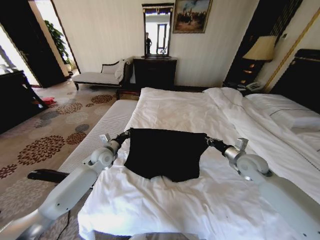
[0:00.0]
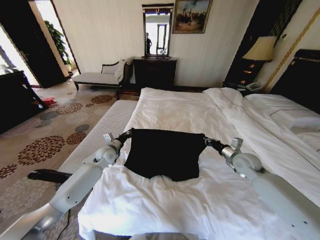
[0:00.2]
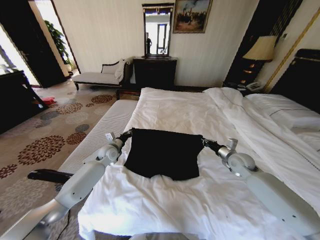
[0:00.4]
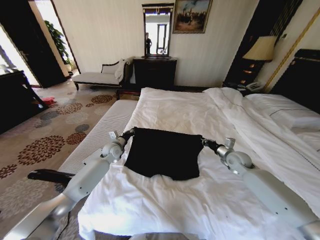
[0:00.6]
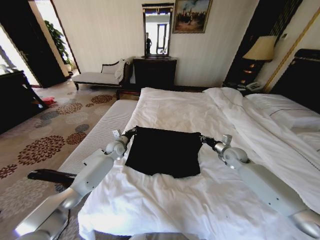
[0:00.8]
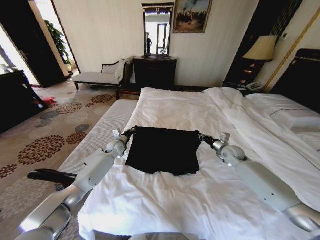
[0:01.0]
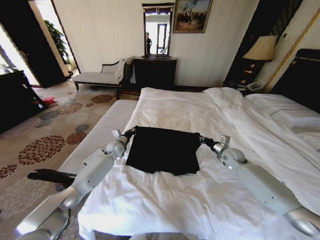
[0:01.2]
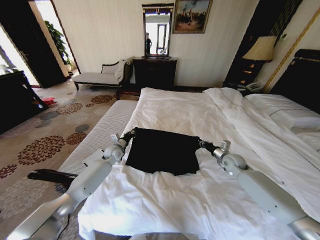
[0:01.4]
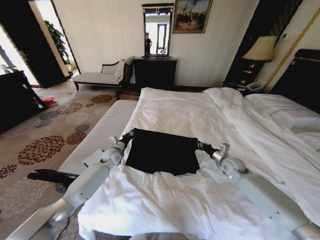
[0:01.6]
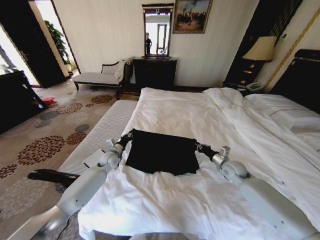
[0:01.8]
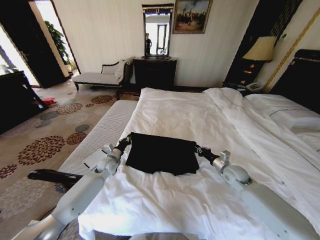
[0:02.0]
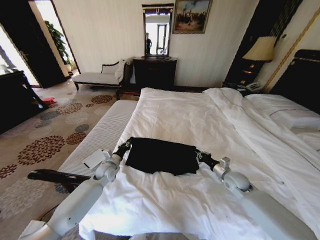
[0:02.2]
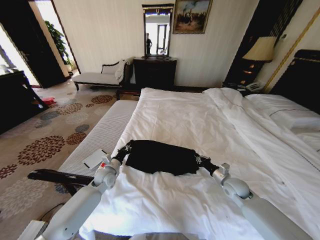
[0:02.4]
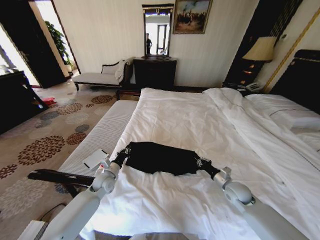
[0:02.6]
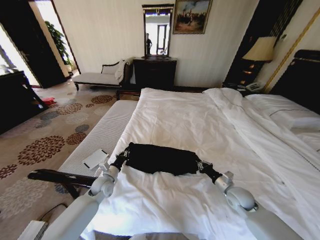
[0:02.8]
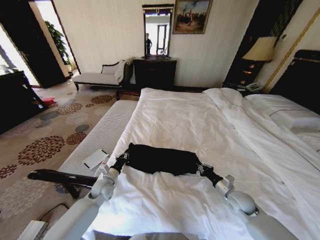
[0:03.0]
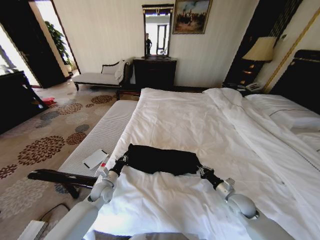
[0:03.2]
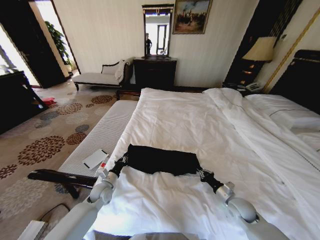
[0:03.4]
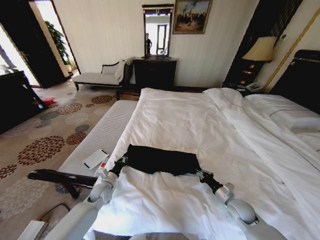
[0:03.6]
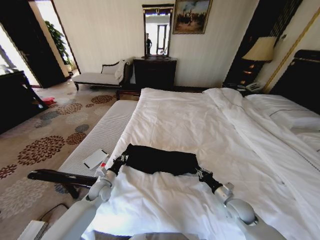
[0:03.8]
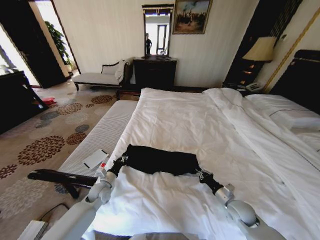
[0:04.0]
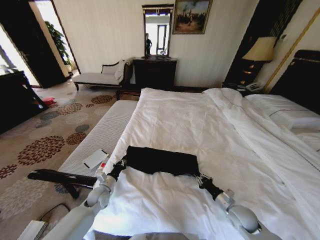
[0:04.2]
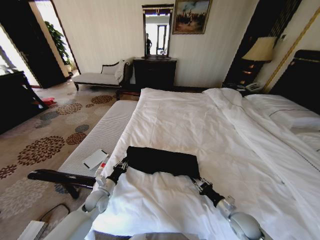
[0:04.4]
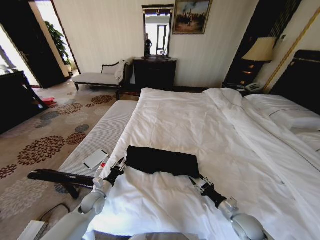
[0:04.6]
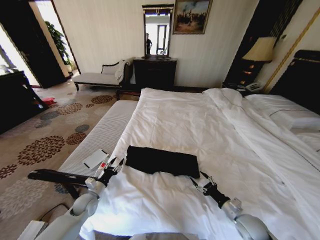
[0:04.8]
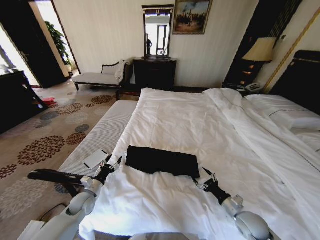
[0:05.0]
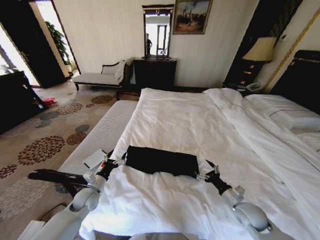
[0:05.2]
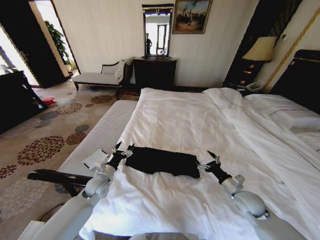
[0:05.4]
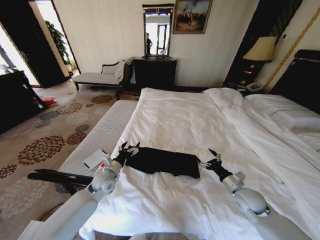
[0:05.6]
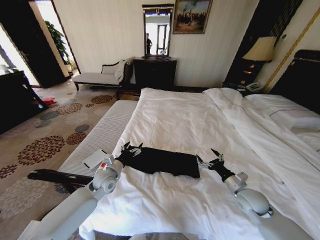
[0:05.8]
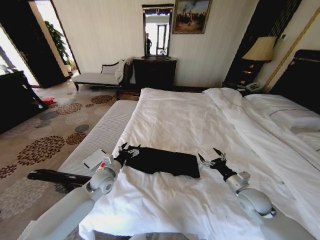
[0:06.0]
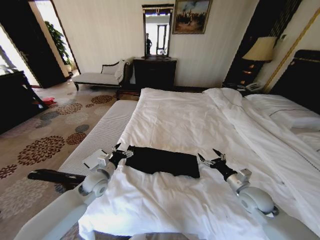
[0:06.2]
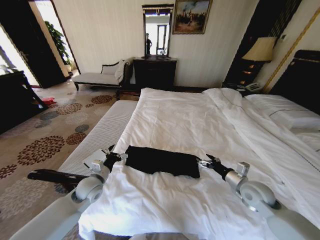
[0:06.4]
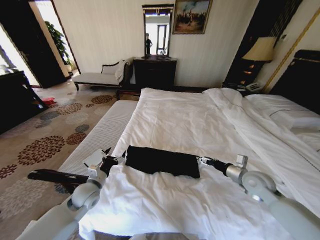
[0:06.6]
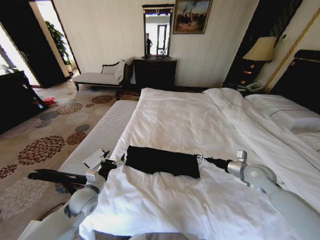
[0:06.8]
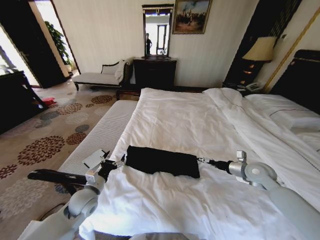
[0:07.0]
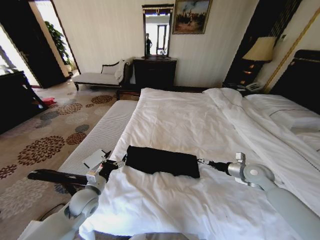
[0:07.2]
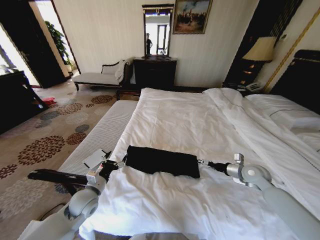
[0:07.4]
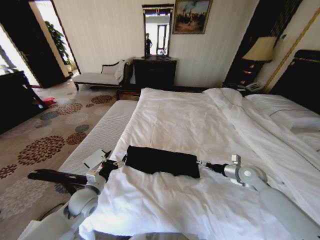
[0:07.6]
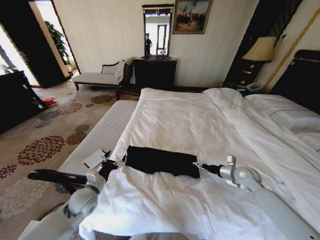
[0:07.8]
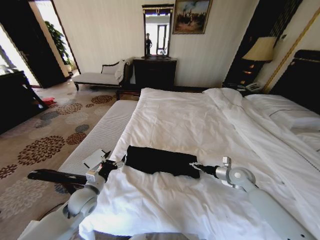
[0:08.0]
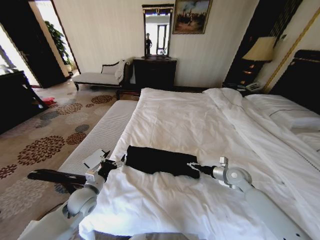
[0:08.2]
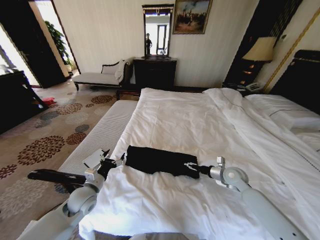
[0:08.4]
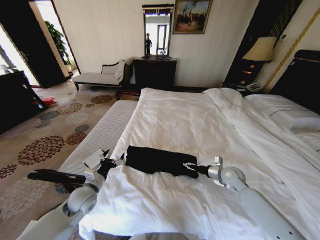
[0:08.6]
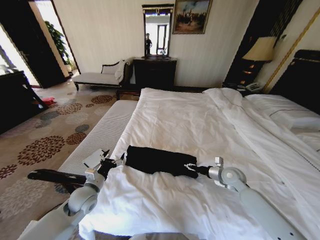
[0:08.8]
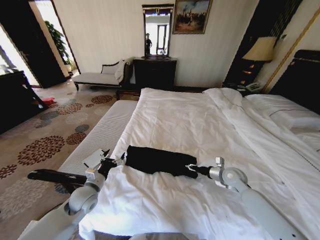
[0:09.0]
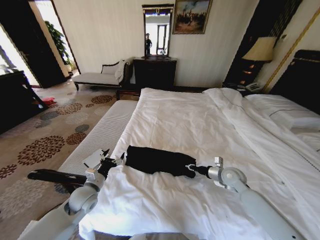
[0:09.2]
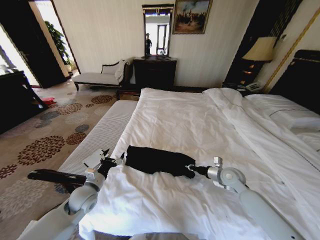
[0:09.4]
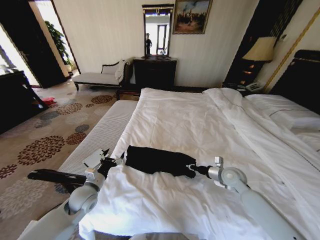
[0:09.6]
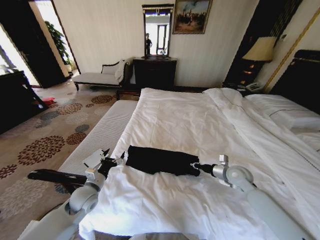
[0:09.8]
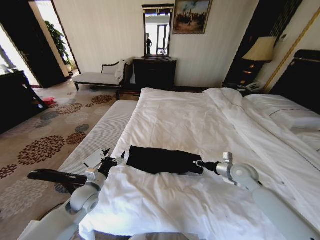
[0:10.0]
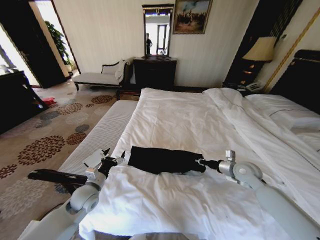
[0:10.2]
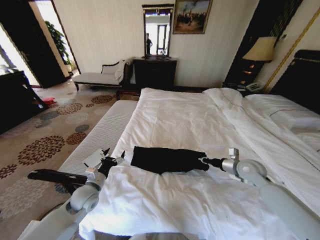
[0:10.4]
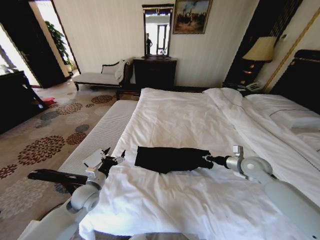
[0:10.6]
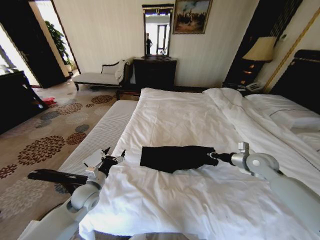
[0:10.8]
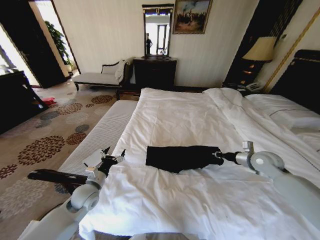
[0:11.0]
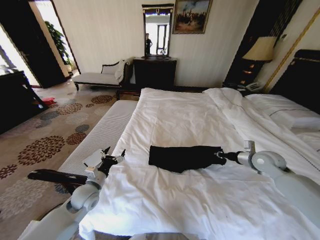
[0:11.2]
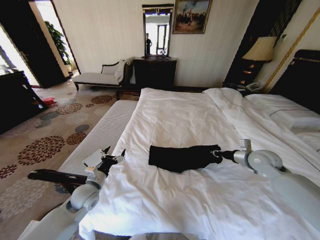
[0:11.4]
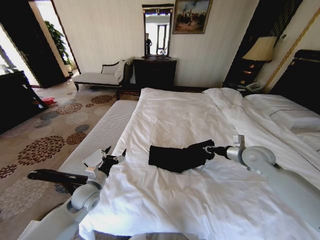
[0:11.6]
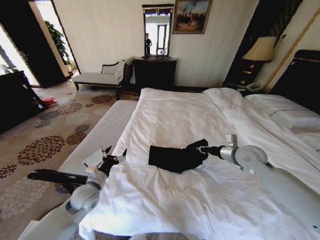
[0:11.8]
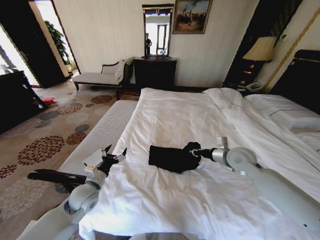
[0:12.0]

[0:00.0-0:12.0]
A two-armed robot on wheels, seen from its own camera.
Task of the whole recording: Fold the clothes on the bed.
0:00.0 to 0:01.6: Both grippers move downward and forward, approximately 10 cm.
0:01.6 to 0:03.0: Both grippers travel together backward and downward, approximately 15 cm.
0:03.0 to 0:04.4: The right gripper moves backward, roughly 5 cm, while the left gripper ends up about 5 cm from where it was.
0:04.4 to 0:06.0: The grippers both shift upward and forward by approximately 10 cm. The left gripper opens its fingers; the right gripper opens up.
0:06.0 to 0:07.6: The right gripper goes some 10 cm forward; the left gripper moves backward, roughly 10 cm.
0:07.6 to 0:09.0: The right gripper heads to the left, covering some 5 cm, and closes its fingers.
0:09.0 to 0:10.4: The right gripper is displaced upward by about 5 cm, and closes.
0:10.4 to 0:12.0: The right gripper goes some 10 cm to the left and upward.

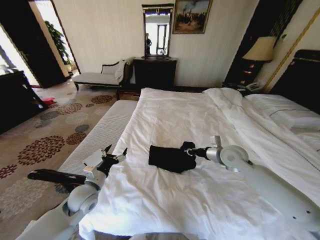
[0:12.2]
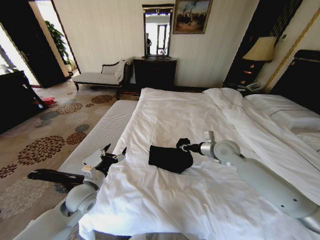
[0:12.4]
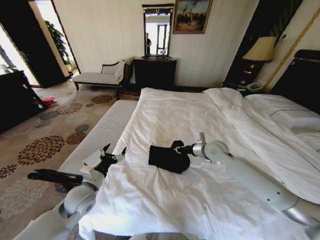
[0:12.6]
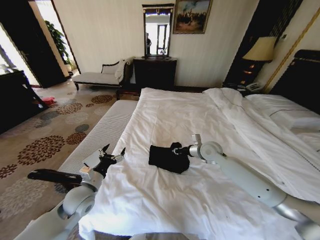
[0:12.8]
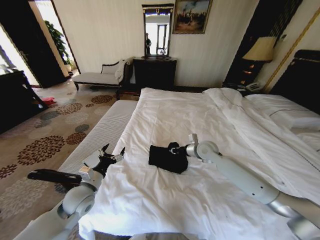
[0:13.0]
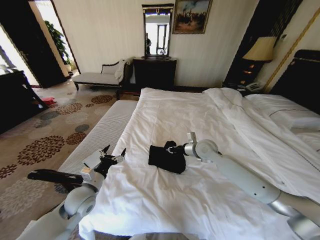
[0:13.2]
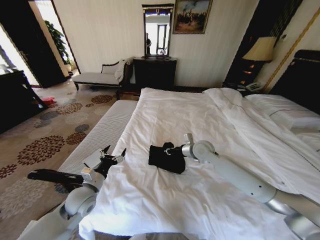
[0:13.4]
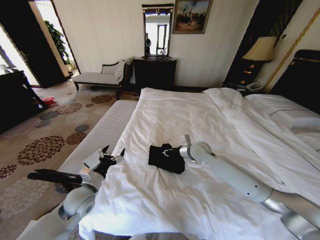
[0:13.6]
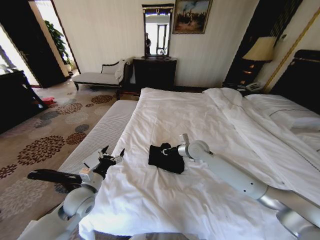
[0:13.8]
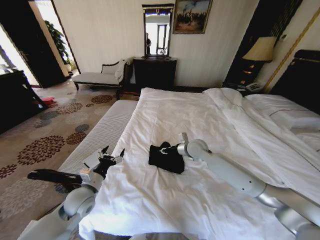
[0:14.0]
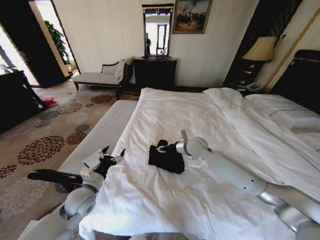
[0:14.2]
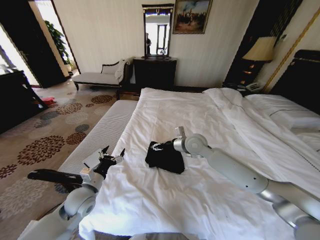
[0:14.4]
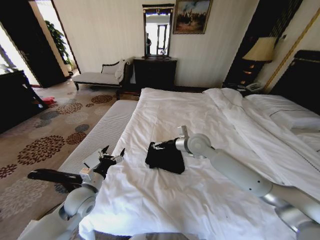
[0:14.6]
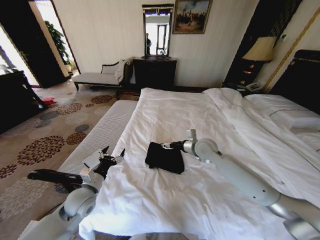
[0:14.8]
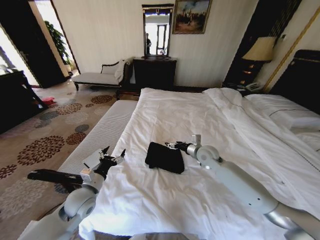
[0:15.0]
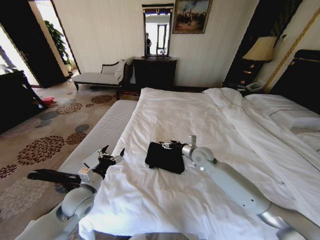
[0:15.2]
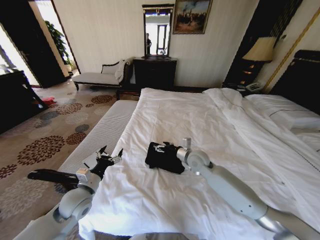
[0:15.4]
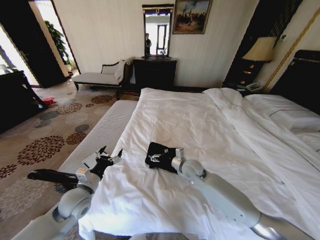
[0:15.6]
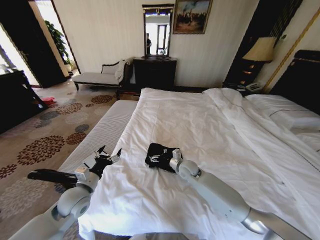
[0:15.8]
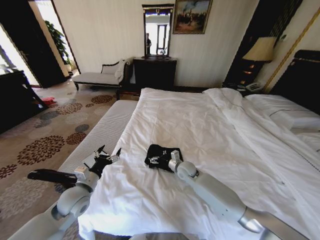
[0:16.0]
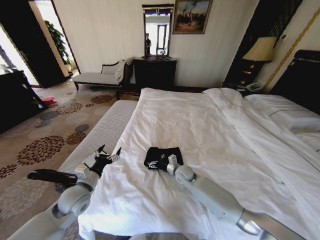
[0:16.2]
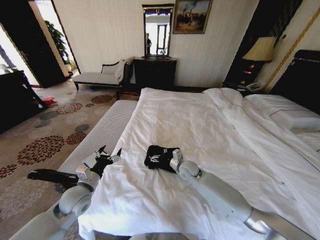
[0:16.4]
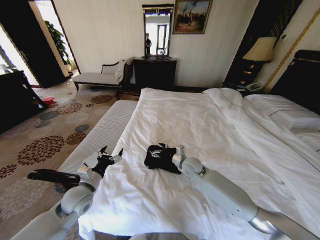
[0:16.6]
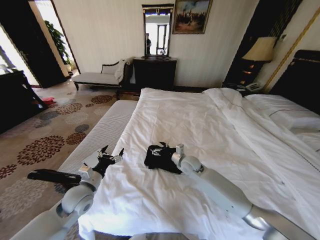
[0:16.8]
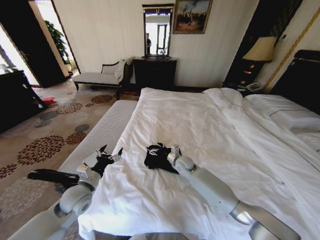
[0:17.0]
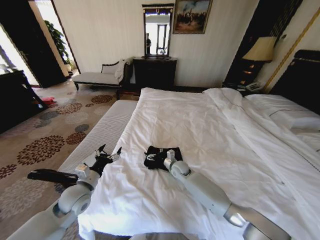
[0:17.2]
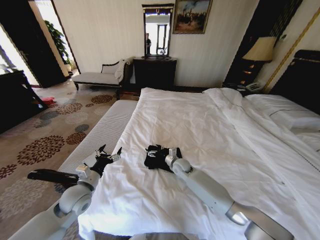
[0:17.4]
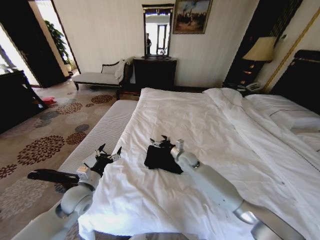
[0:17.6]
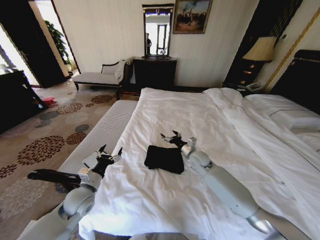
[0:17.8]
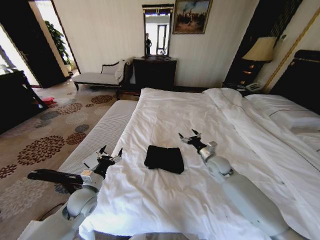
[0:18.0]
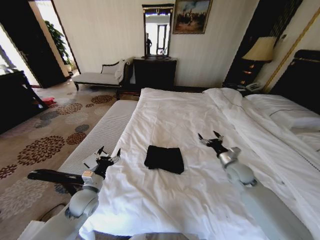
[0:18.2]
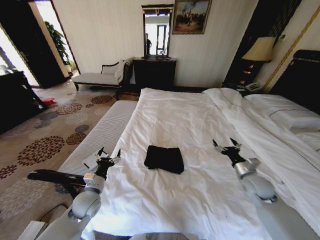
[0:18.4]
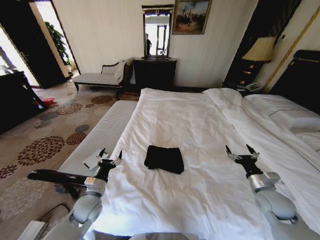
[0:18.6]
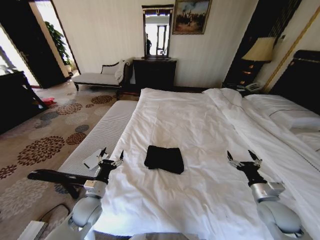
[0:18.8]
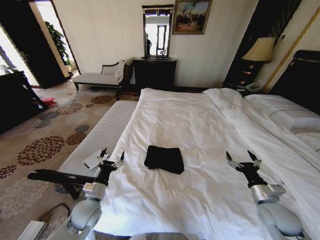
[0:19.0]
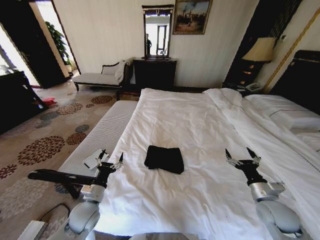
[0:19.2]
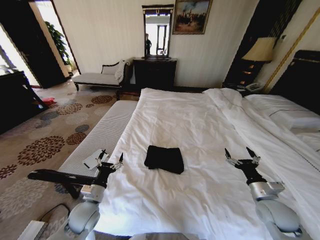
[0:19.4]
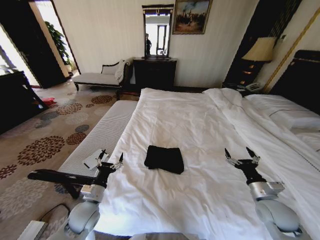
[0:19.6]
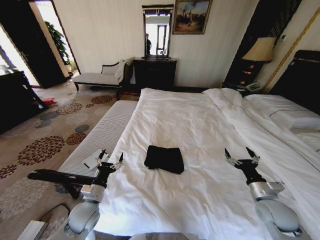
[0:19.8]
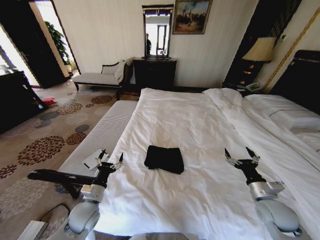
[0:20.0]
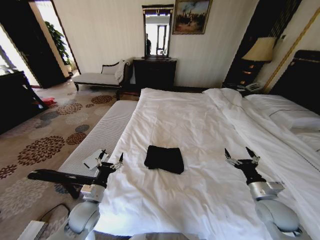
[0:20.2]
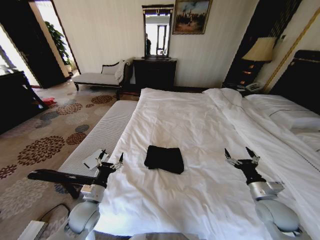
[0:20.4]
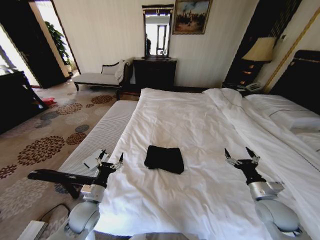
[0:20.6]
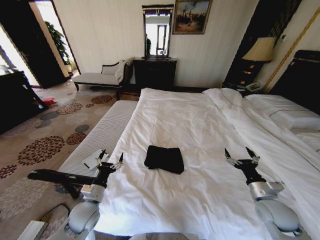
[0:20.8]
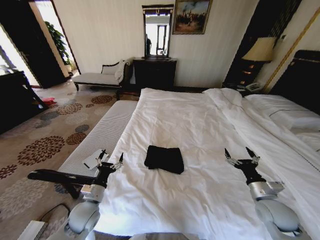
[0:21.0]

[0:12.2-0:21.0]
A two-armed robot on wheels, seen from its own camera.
Task of the whole recording: Fold the clothes on the bed.
0:12.2 to 0:13.6: The right gripper moves to the left and forward, roughly 15 cm.
0:13.6 to 0:15.2: The right gripper moves roughly 5 cm upward and comes back, and opens up.
0:15.2 to 0:16.6: The right gripper moves downward, about 5 cm.
0:16.6 to 0:18.0: The right gripper goes about 10 cm to the right.
0:18.0 to 0:19.6: The right gripper shifts about 25 cm backward and to the right.
0:19.6 to 0:21.0: Neither gripper changes place.

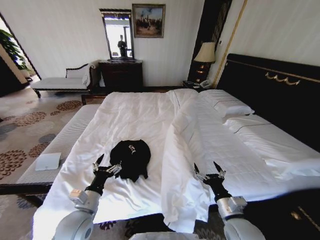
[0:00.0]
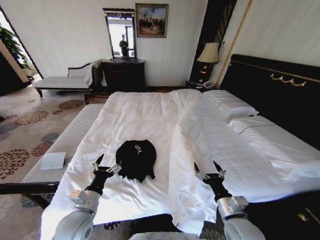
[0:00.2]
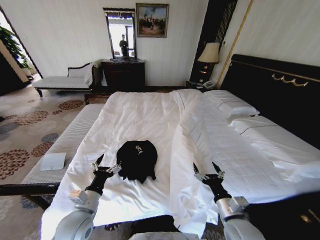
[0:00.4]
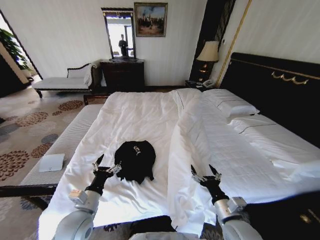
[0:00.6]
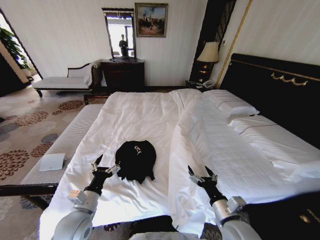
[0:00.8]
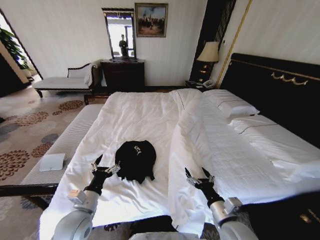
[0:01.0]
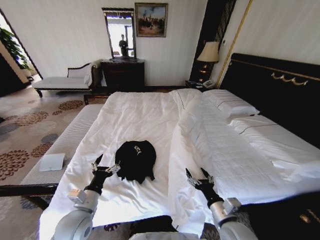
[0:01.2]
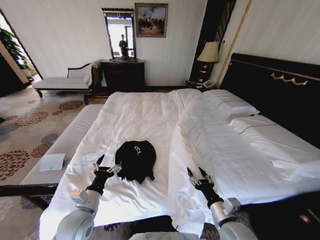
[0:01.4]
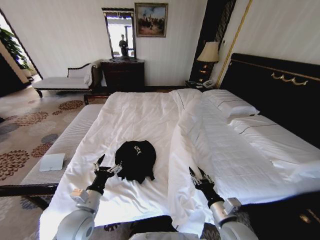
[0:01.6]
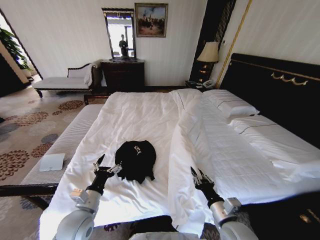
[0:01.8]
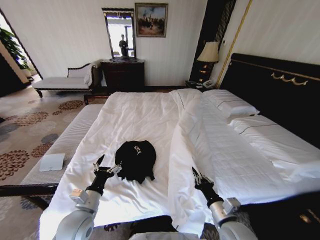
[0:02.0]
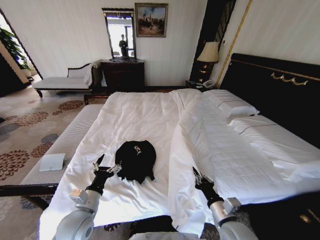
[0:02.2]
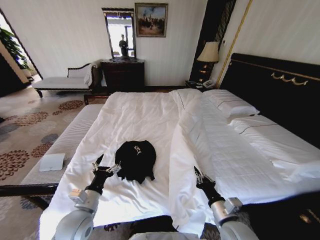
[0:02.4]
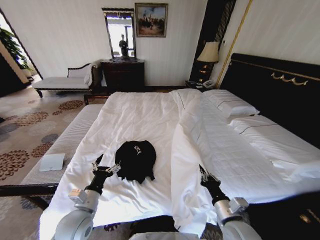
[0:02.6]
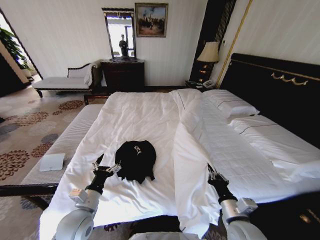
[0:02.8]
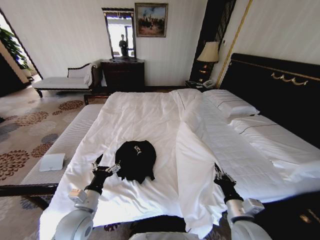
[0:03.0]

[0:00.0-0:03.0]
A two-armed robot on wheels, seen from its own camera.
Task of the whole recording: Fold the clothes on the bed.
0:00.0 to 0:01.6: The right gripper closes its fingers.
0:01.6 to 0:03.0: The right gripper closes.
